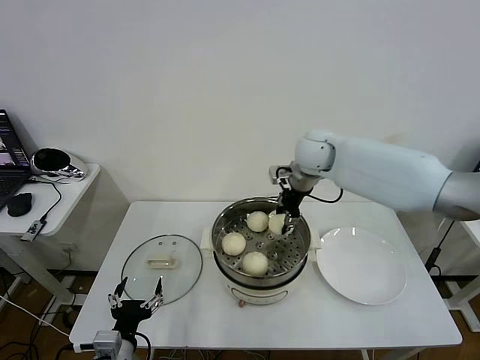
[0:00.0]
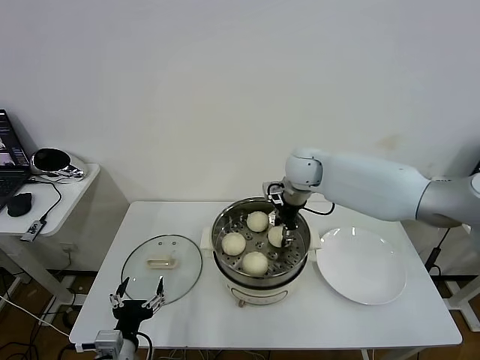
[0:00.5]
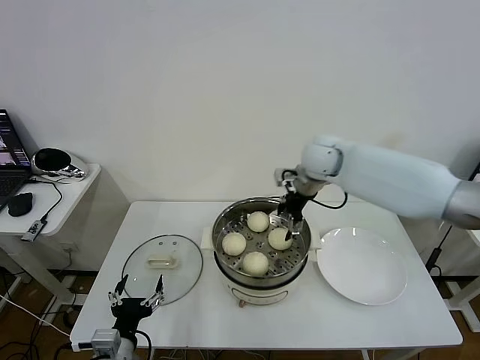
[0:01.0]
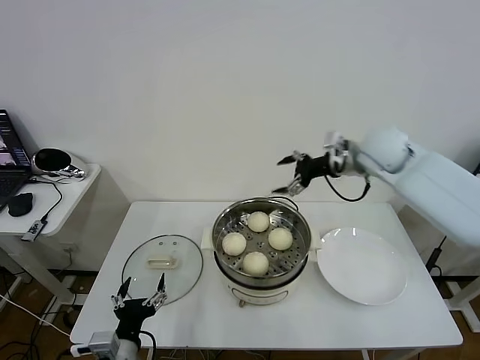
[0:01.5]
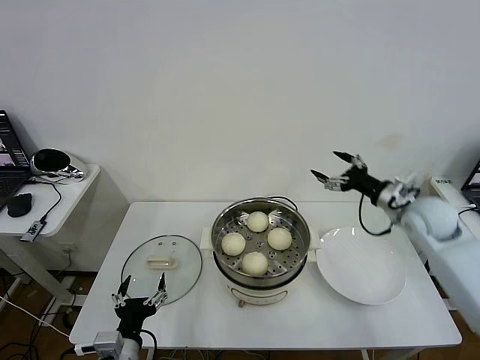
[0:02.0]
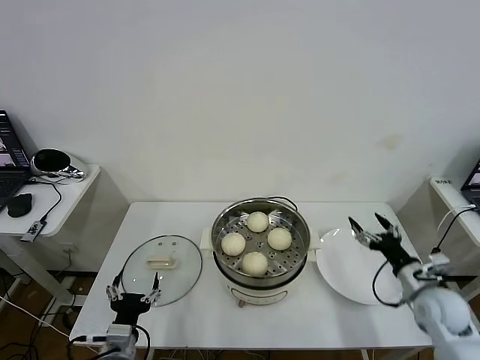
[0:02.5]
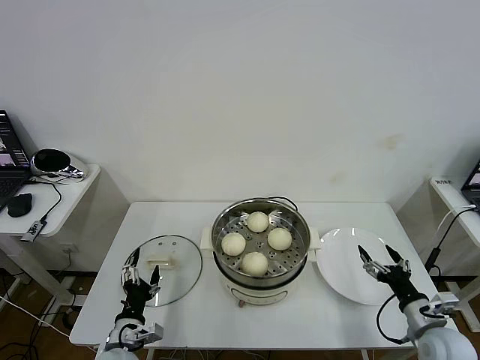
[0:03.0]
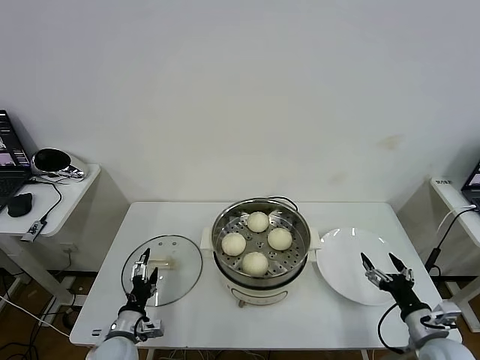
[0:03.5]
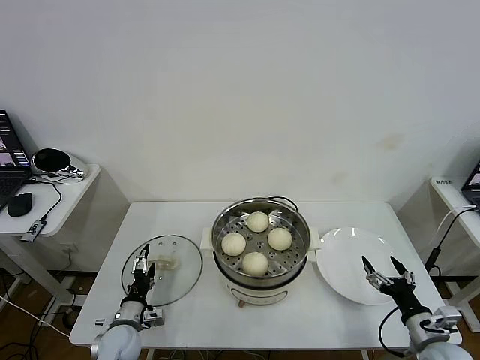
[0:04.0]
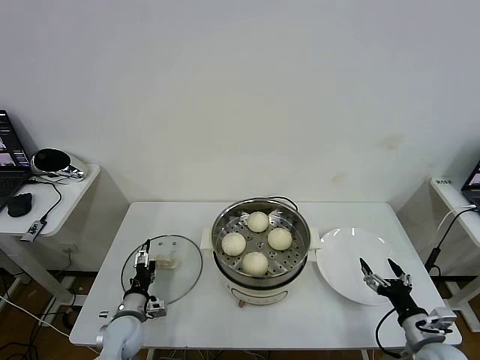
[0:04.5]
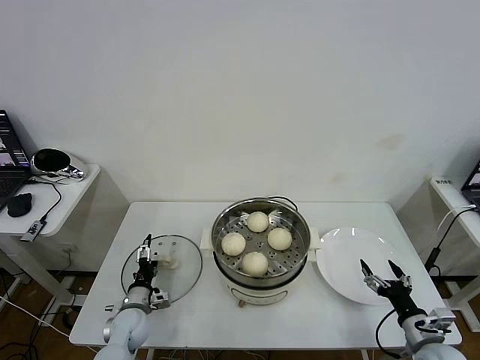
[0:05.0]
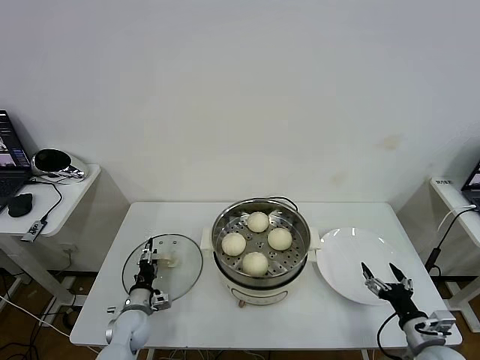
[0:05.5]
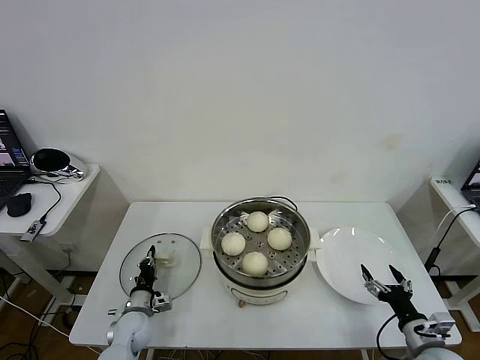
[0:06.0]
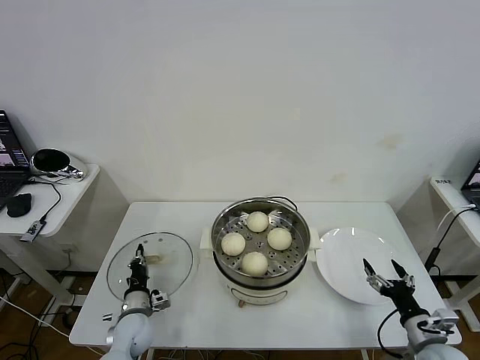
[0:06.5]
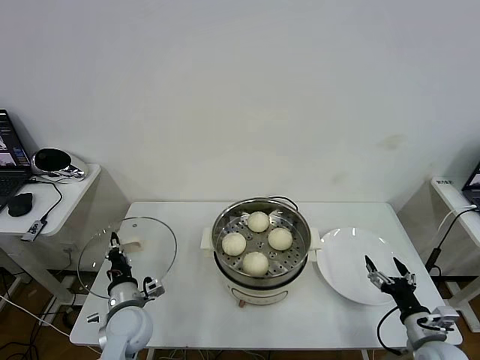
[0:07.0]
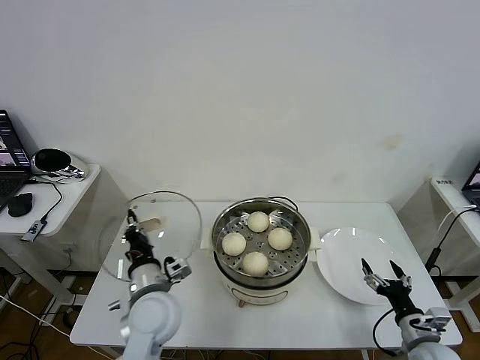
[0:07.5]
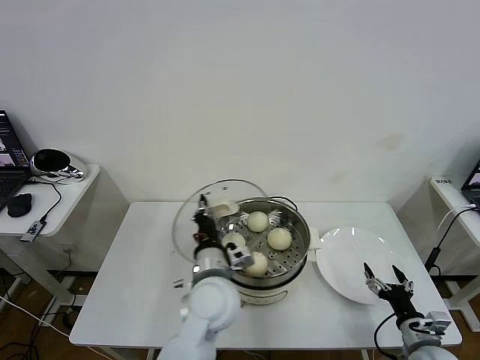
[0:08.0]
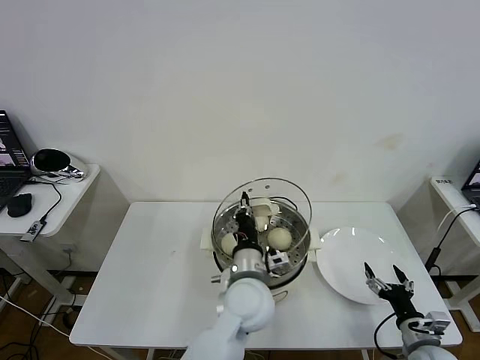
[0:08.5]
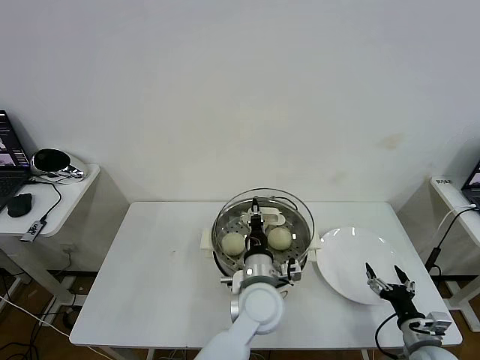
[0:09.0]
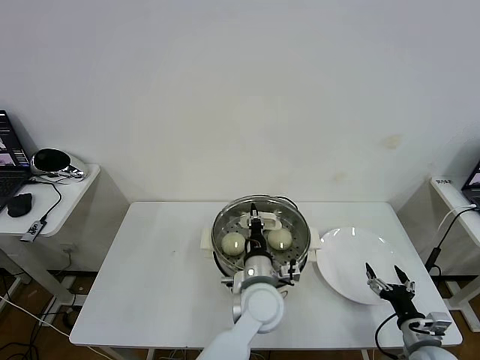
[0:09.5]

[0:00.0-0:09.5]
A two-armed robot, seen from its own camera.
Task of the whole recording: take steamed baozi put them in steamer then cover it.
Step, 0:01.0 to 0:06.0: Grasp the pot lid with left gripper.
0:00.0 to 0:02.0: The right gripper goes approximately 25 cm to the right and backward, and opens.
0:02.0 to 0:04.0: The left gripper moves forward, downward and to the left, about 15 cm. Meanwhile the right gripper travels backward and downward by approximately 30 cm.
0:04.0 to 0:05.5: The left gripper shifts roughly 5 cm forward.
0:05.5 to 0:07.5: The left gripper moves upward and to the right, some 25 cm, and closes up.
0:07.5 to 0:09.5: The left gripper is displaced to the right by approximately 20 cm.

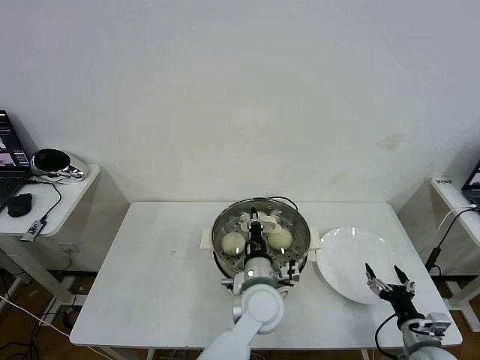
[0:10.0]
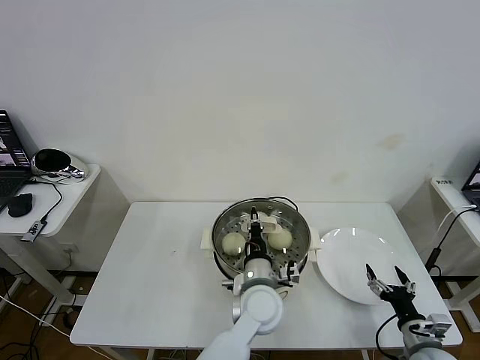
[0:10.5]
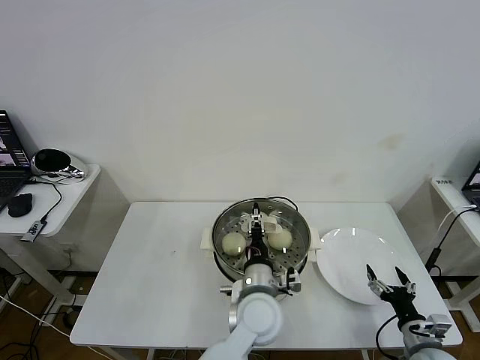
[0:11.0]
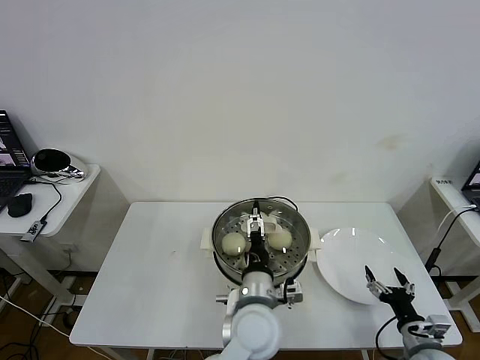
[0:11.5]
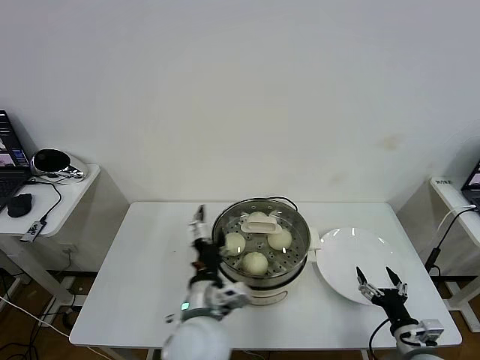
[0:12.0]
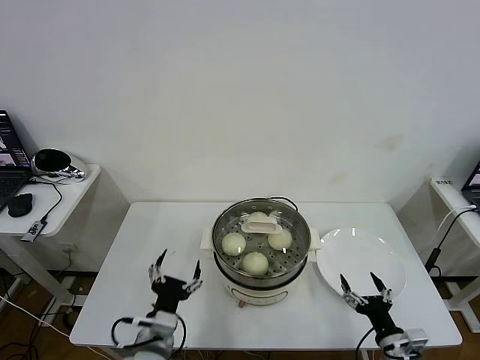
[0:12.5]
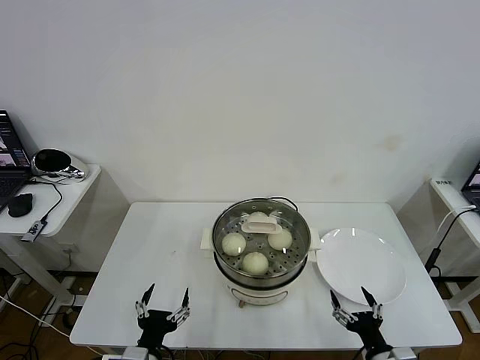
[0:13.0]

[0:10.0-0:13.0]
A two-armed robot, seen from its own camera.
Task of the whole recording: take steamed baozi put them in steamer then cover it.
0:10.0 to 0:11.5: The left gripper shifts by about 5 cm, and opens.
0:11.5 to 0:13.0: The left gripper travels to the left and backward by roughly 25 cm; the right gripper travels to the left and backward by roughly 10 cm.
